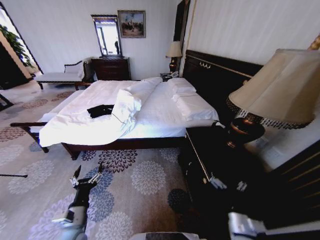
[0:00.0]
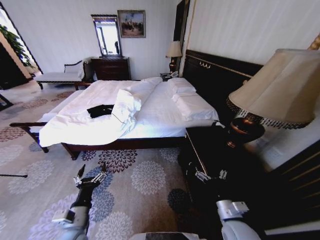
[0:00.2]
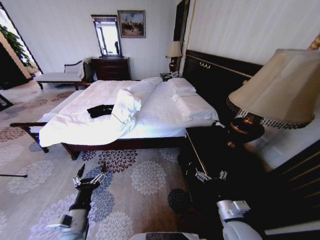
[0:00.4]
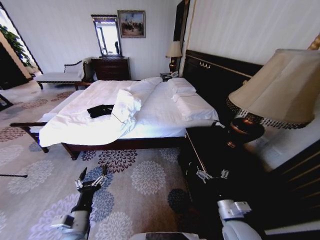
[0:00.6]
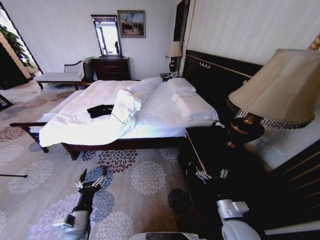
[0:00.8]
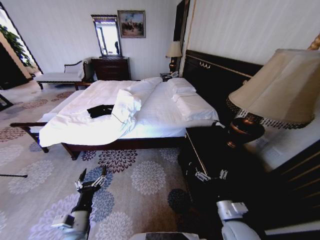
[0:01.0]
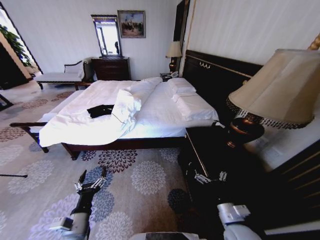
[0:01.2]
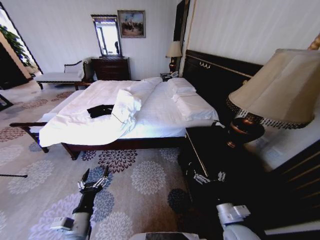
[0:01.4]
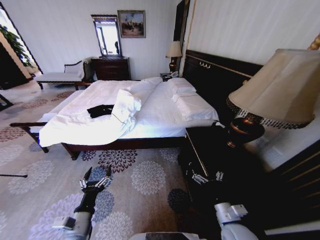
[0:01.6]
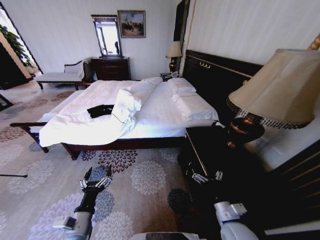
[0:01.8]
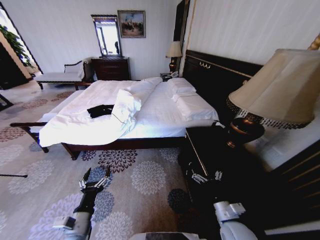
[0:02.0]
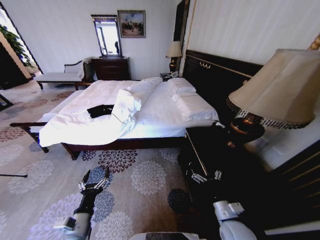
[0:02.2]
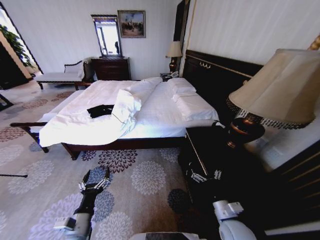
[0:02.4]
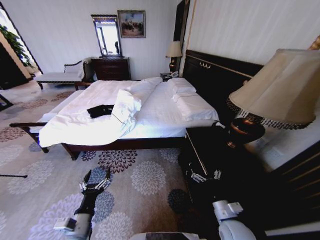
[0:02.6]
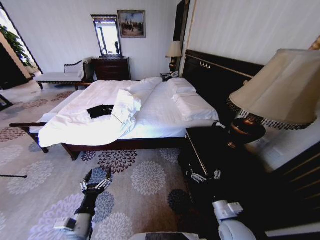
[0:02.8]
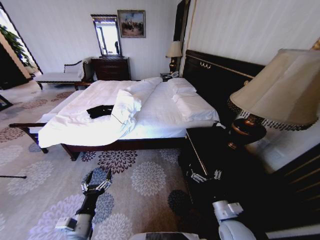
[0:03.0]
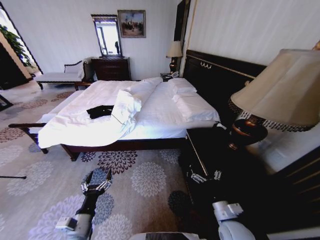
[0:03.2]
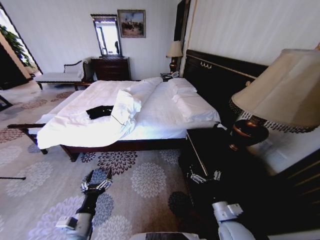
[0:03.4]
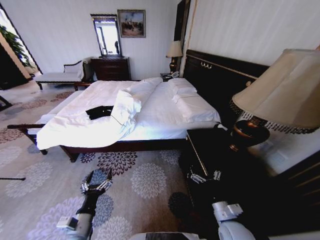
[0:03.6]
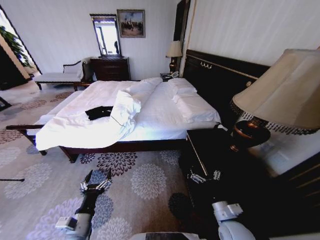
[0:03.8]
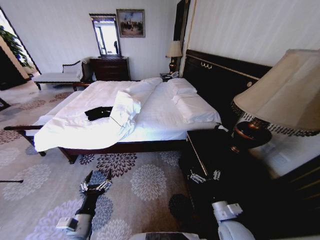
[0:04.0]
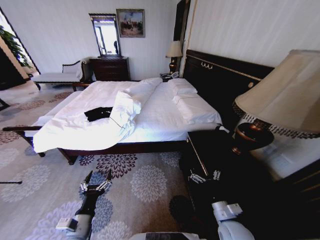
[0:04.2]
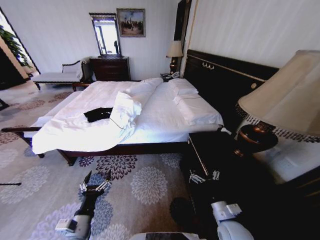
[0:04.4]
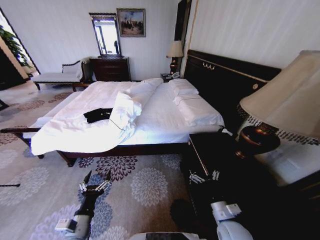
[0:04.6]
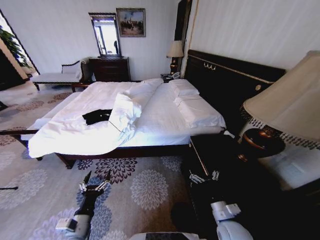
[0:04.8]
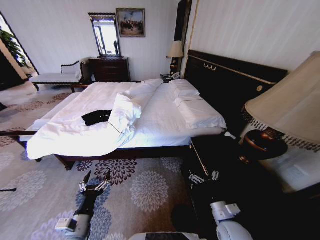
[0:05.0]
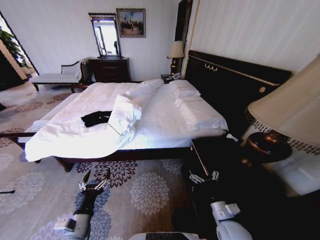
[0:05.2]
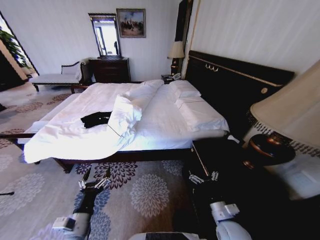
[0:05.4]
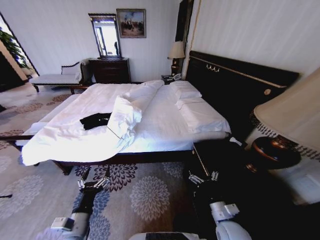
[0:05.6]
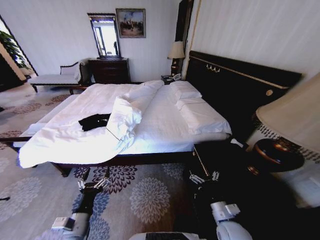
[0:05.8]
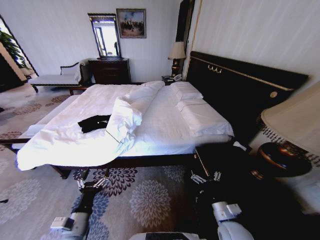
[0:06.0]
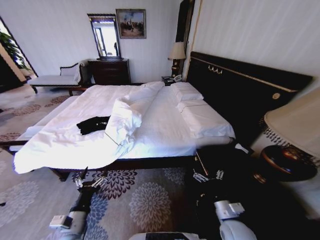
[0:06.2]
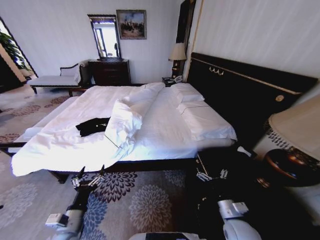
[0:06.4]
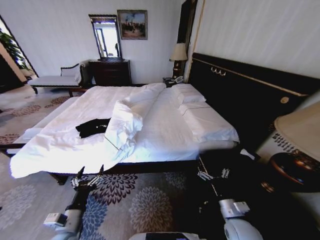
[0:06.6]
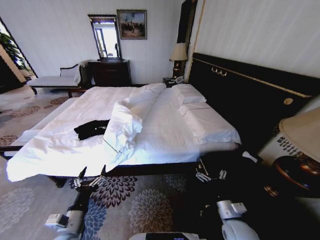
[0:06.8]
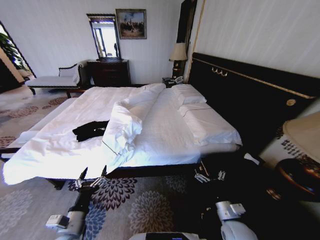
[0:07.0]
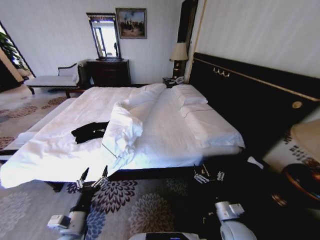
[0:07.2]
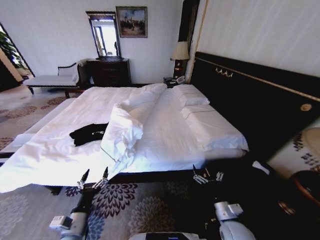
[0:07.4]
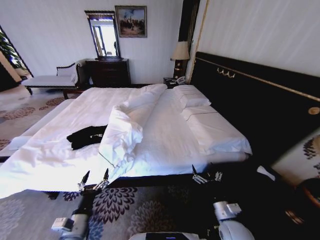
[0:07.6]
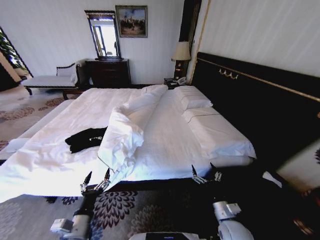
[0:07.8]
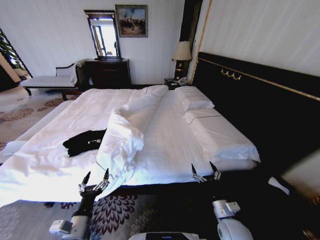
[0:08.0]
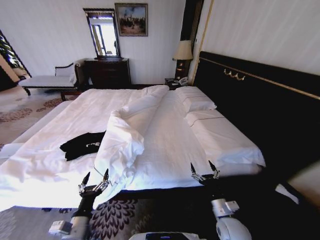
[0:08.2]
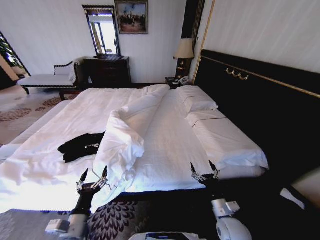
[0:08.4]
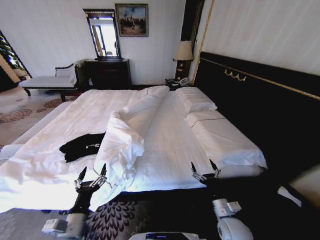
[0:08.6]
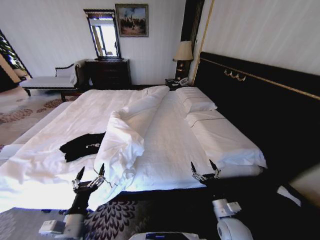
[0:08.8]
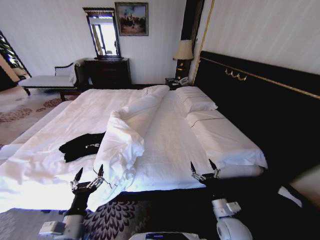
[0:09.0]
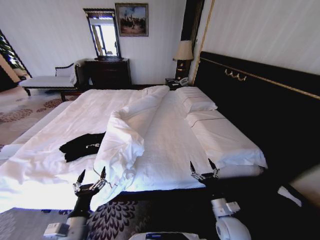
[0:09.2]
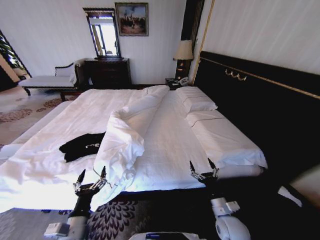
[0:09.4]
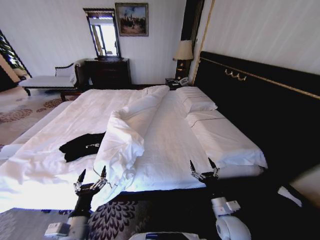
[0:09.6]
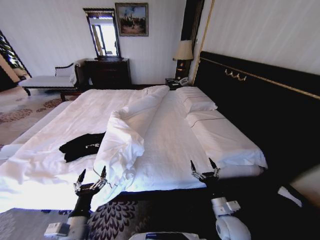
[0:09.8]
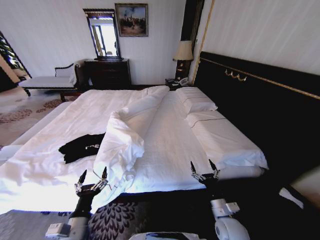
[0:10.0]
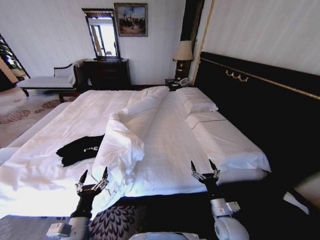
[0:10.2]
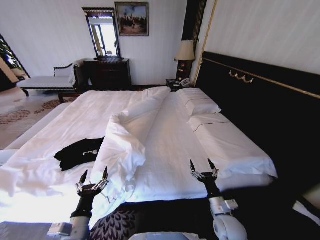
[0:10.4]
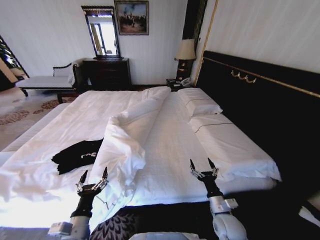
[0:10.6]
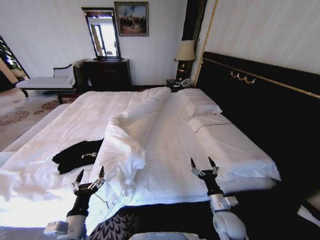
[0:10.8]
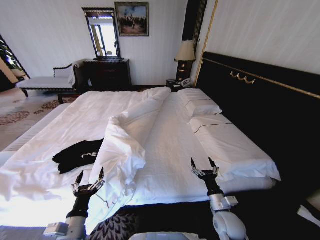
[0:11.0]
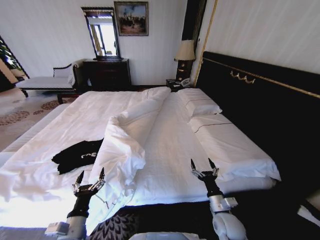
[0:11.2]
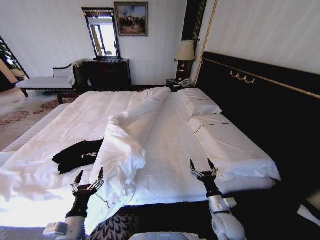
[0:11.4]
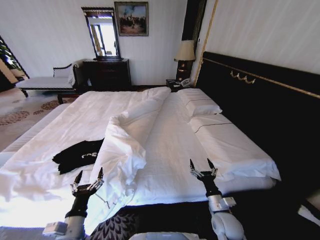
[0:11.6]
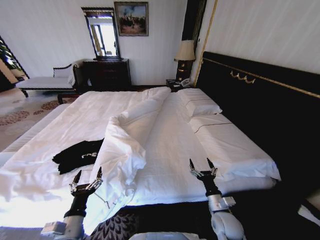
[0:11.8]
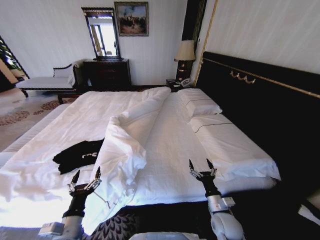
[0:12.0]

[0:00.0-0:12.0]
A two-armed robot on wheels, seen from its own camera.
Task of the whole recording: Fold the clothes on the bed.
0:01.6 to 0:03.0: The grippers move only a little.
0:10.4 to 0:12.0: The grippers make only small movements.

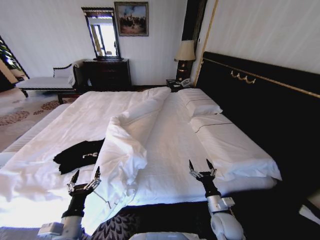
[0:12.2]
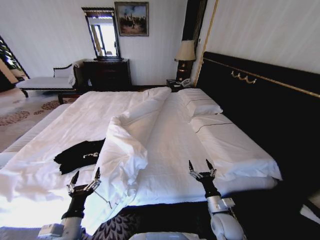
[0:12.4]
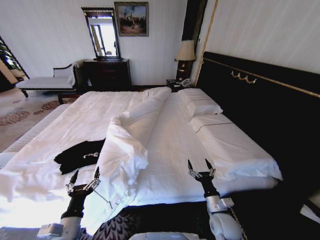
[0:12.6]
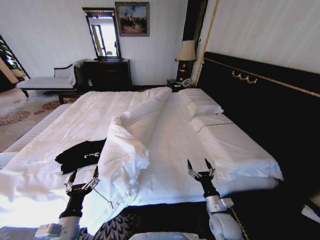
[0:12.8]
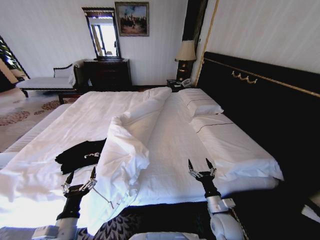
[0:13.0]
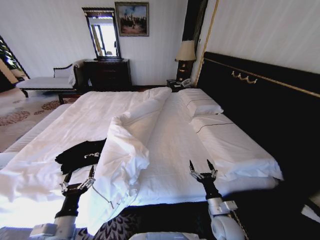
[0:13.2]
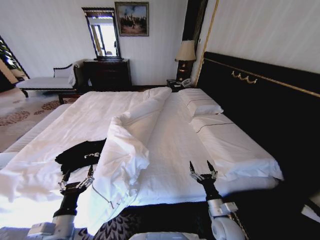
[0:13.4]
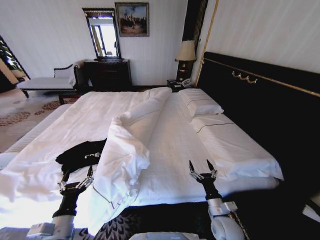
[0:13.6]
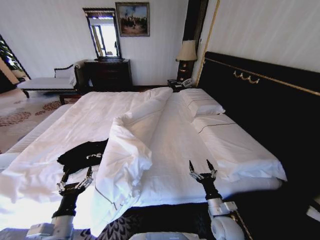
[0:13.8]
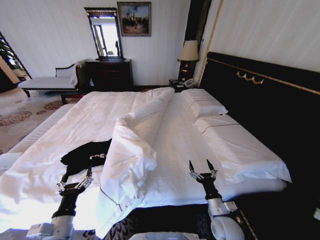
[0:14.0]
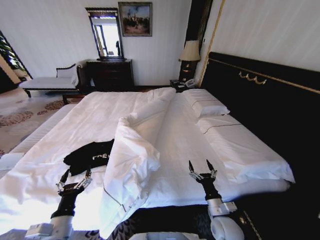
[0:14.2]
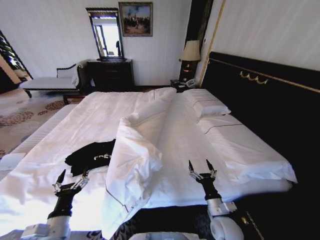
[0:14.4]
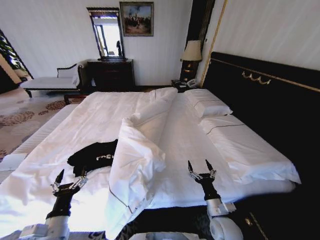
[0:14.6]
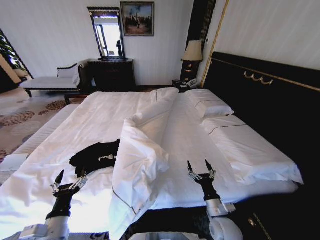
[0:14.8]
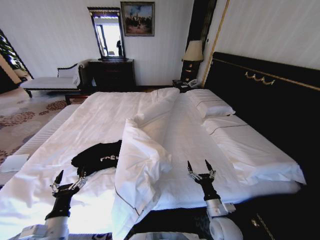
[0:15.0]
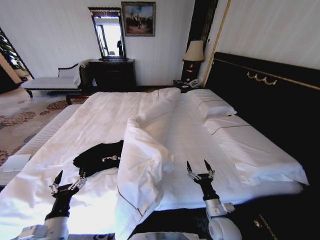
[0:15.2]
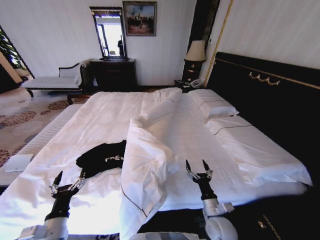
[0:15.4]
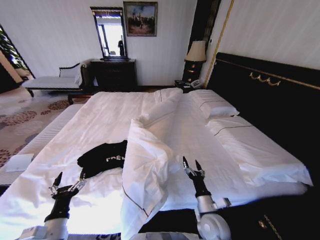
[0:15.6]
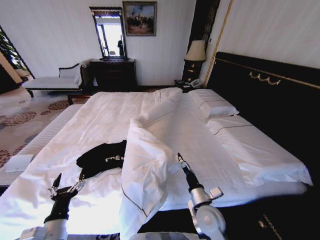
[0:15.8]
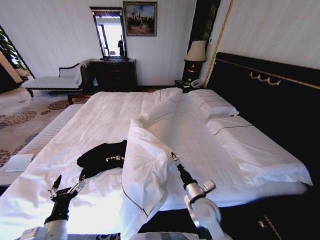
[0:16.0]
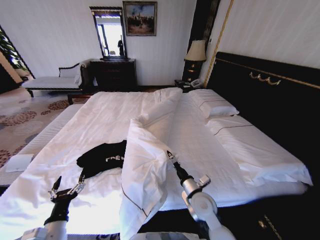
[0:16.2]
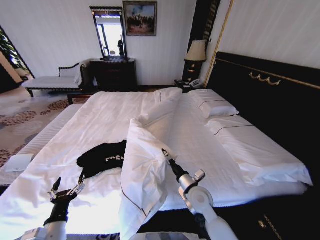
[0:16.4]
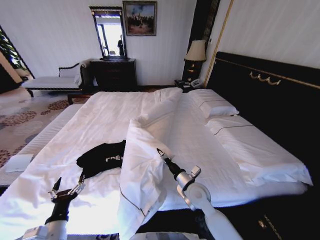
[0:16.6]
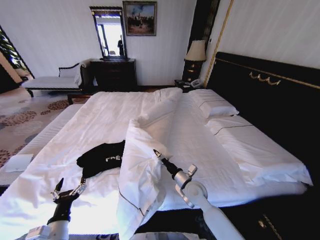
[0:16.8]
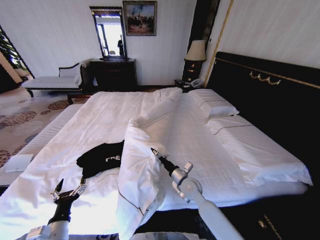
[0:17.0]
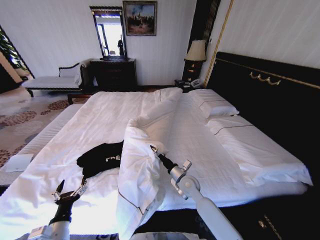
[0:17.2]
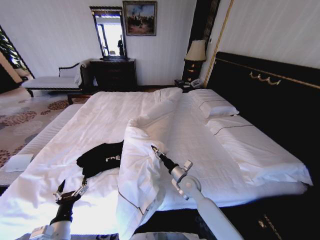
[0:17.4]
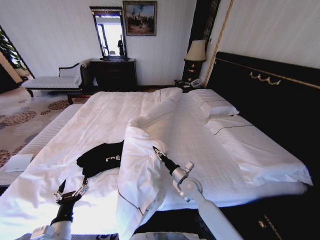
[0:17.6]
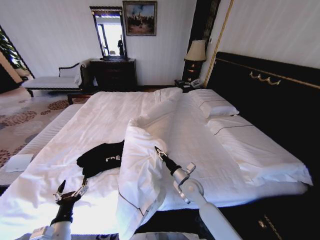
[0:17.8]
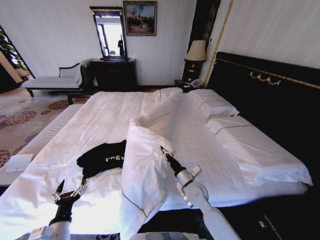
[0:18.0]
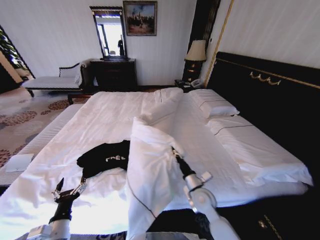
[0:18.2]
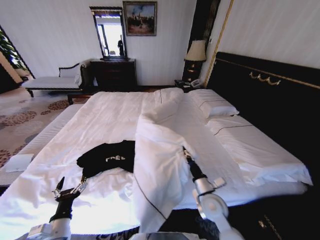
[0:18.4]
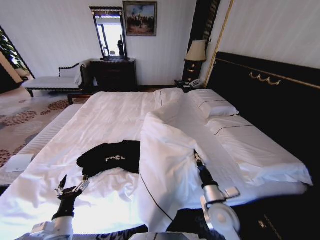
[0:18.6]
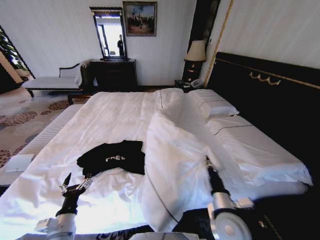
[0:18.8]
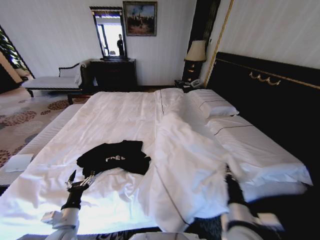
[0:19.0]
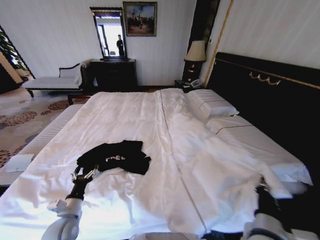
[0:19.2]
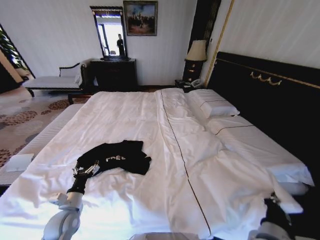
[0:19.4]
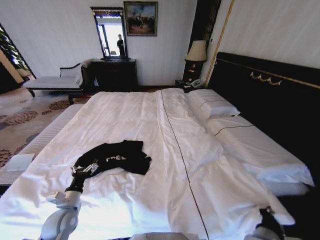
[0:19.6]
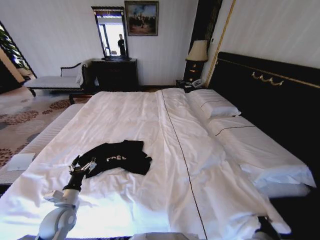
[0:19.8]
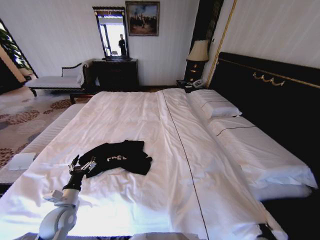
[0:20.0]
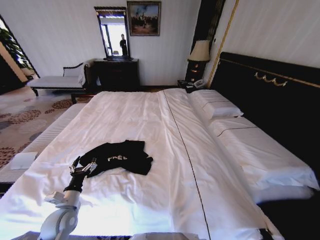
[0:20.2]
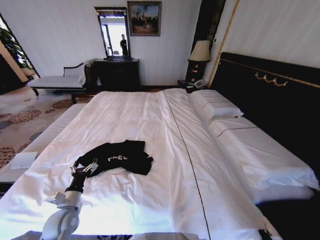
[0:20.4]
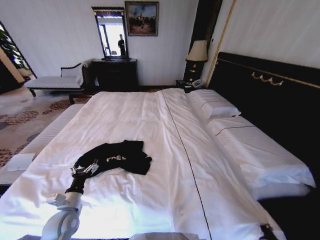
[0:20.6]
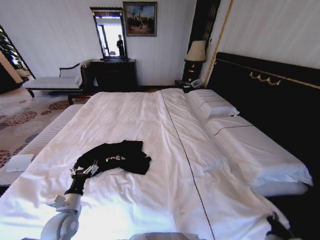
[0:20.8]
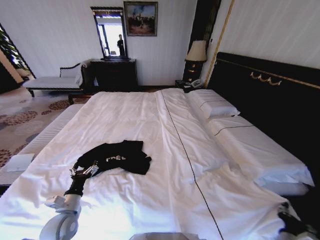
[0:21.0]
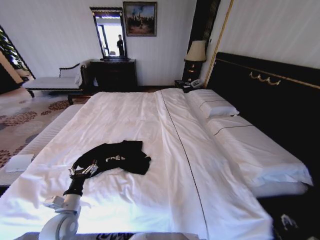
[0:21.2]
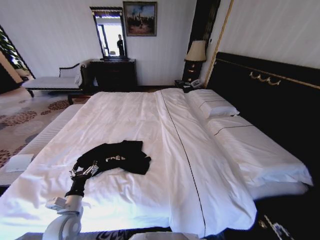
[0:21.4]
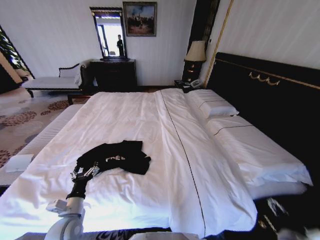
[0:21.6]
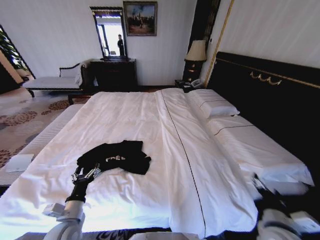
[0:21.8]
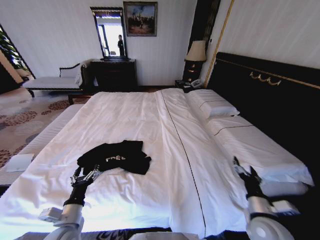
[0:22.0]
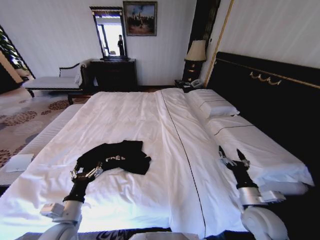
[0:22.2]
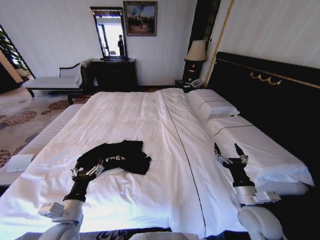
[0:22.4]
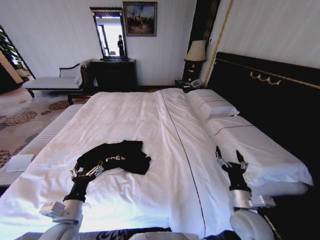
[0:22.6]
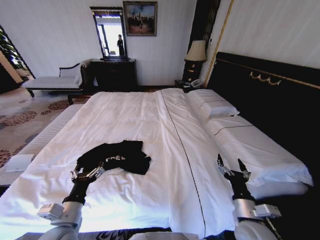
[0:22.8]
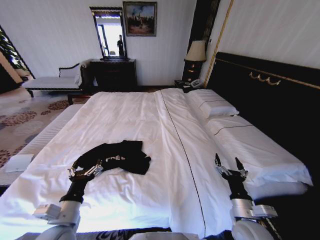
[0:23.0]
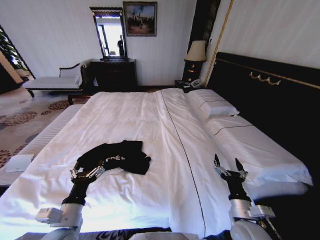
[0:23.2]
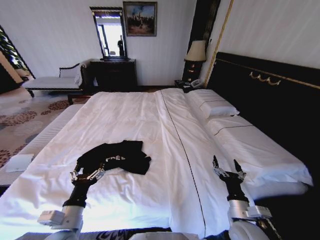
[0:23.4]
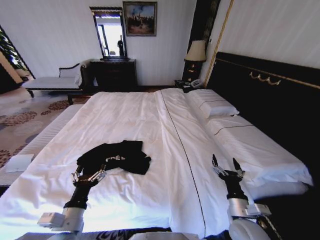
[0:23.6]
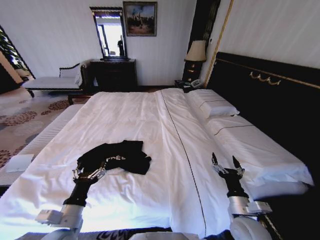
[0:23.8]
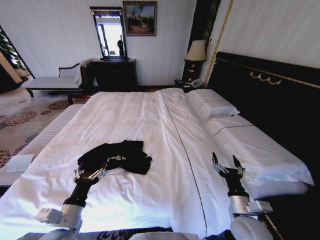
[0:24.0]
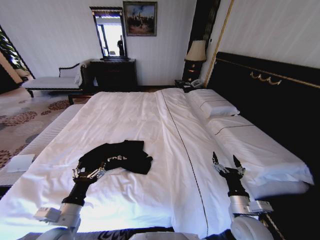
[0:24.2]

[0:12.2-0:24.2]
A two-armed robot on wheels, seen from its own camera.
Task of the whole recording: Fold the clothes on the bed.
0:12.2 to 0:13.8: The grippers stay close to where they were, moving slightly.
0:15.2 to 0:16.6: The right gripper is displaced forward, to the left and upward by approximately 15 cm.
0:16.6 to 0:18.2: The right gripper closes.
0:18.2 to 0:19.8: The left gripper moves forward, about 10 cm. The right gripper travels backward and to the right by approximately 20 cm.
0:19.8 to 0:21.2: The right gripper travels to the right by approximately 5 cm, travels downward and back again, some 10 cm each way, and opens its fingers.
0:21.2 to 0:22.6: The right gripper moves forward and to the left, roughly 15 cm, while the left gripper is displaced upward and to the right by approximately 10 cm.
0:22.6 to 0:24.2: There are only small adjustments of the grippers.
